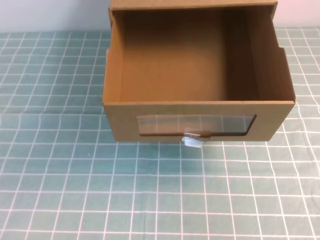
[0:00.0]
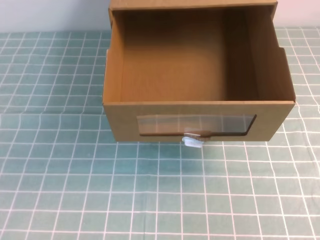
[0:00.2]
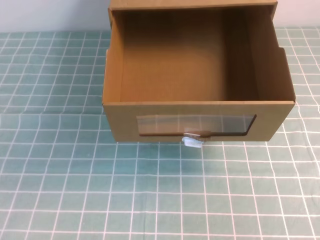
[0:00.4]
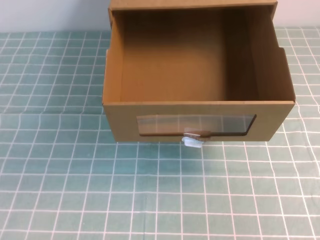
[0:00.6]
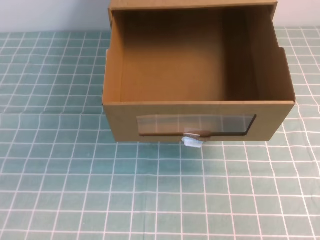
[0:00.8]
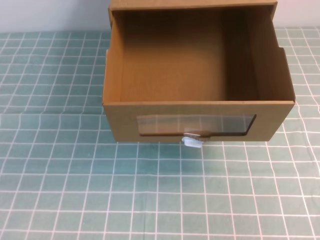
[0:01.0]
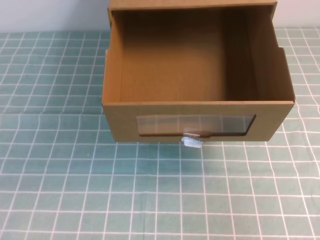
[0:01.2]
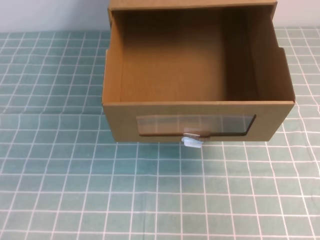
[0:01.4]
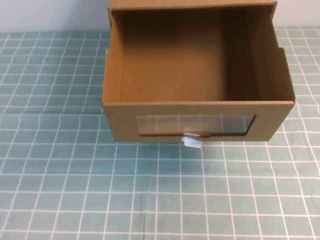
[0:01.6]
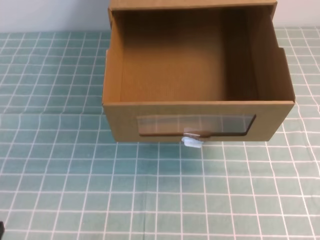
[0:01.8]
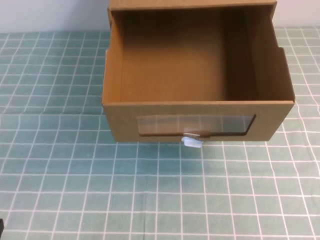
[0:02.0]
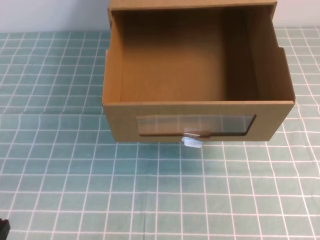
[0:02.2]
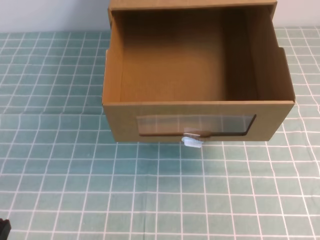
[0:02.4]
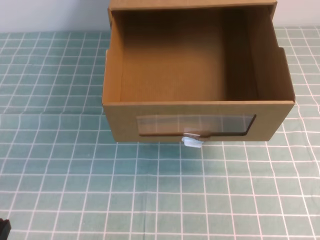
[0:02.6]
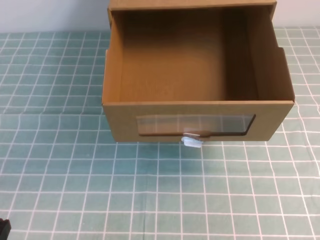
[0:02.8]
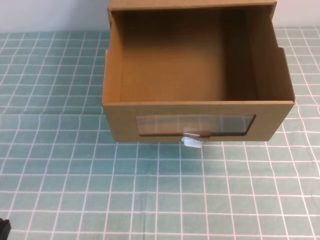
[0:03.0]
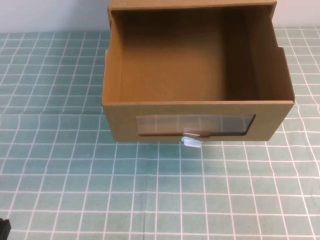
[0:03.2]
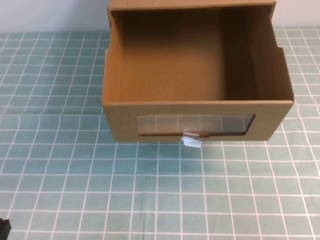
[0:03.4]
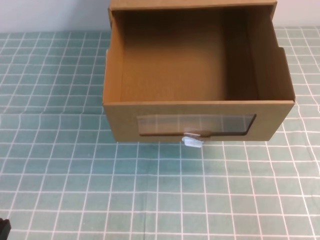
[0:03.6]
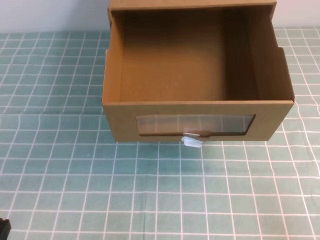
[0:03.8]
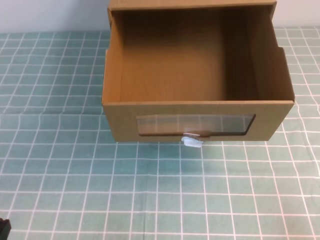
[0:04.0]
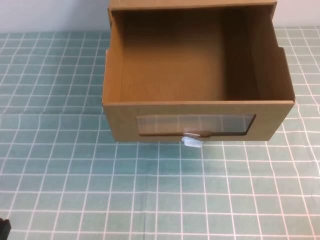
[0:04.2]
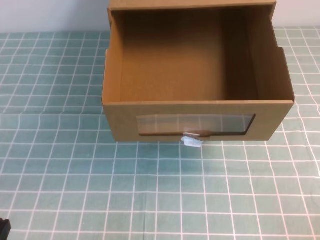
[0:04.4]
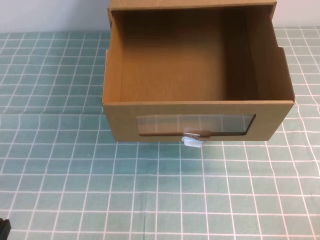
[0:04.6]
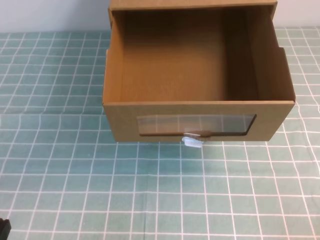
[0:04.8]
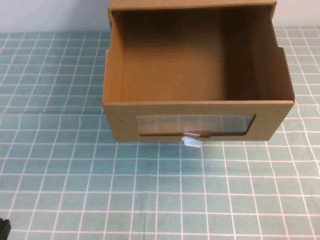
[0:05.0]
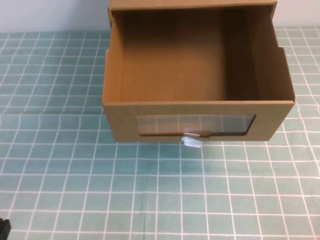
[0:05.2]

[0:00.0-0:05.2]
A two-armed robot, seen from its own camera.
Task of the whole recording: open the shoebox on the cyan tablecloth.
0:00.0 to 0:01.8: The left gripper moves downward, approximately 20 cm.

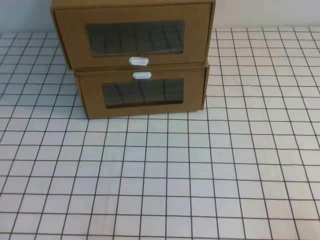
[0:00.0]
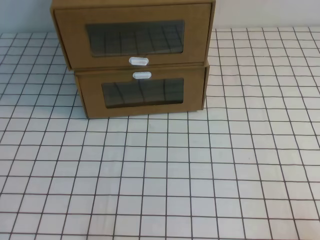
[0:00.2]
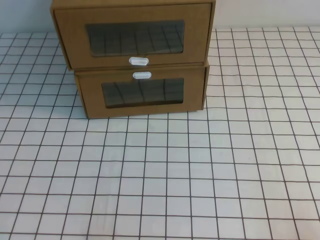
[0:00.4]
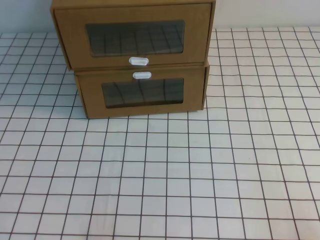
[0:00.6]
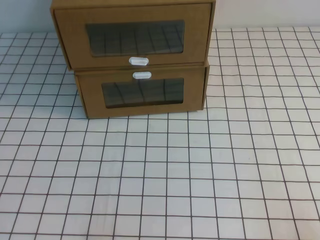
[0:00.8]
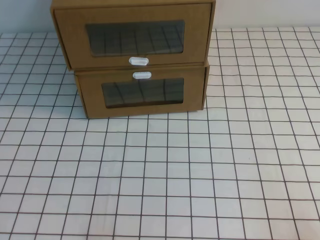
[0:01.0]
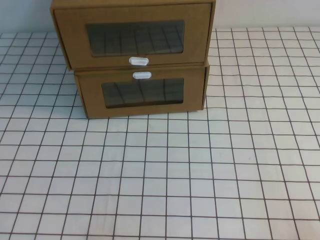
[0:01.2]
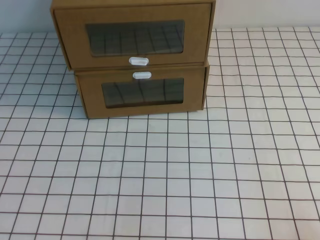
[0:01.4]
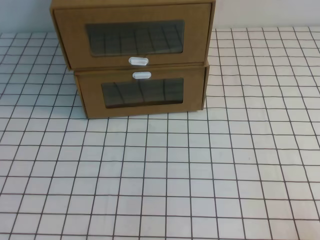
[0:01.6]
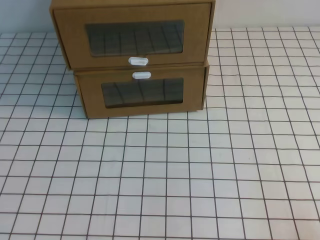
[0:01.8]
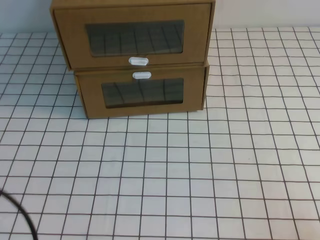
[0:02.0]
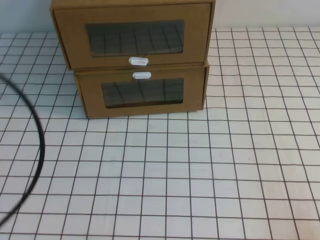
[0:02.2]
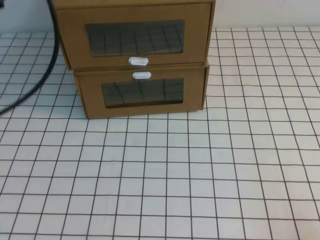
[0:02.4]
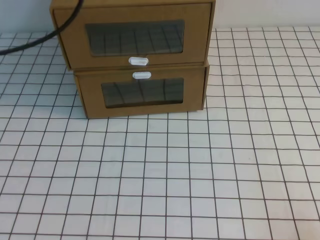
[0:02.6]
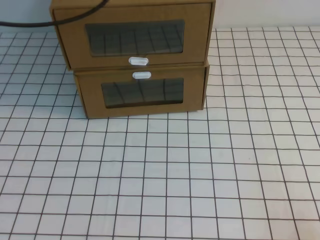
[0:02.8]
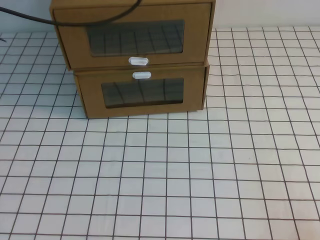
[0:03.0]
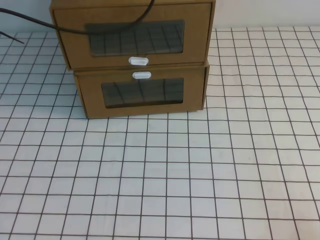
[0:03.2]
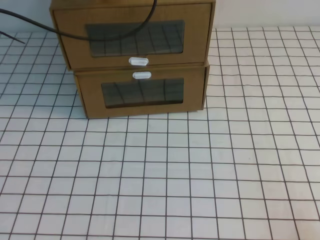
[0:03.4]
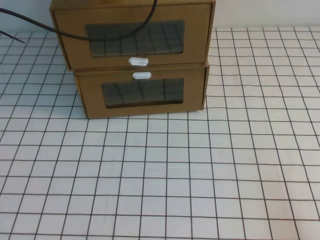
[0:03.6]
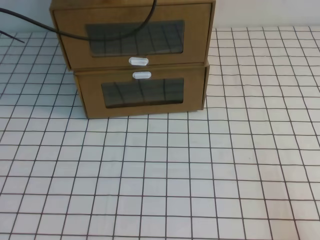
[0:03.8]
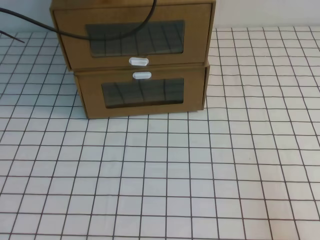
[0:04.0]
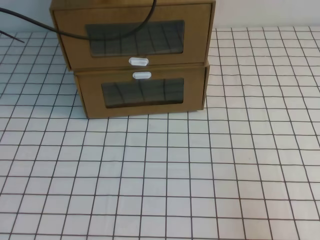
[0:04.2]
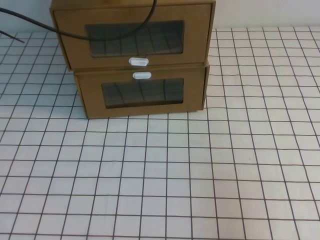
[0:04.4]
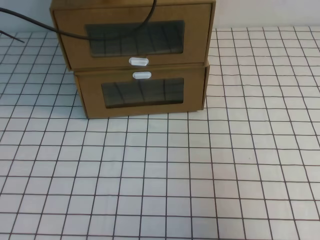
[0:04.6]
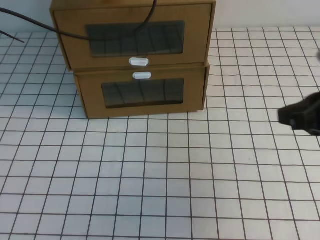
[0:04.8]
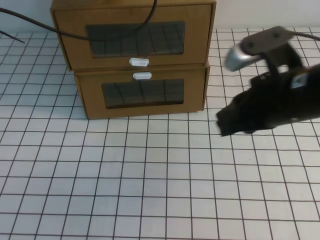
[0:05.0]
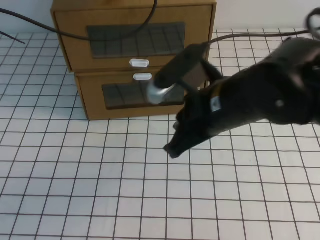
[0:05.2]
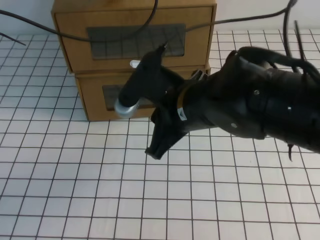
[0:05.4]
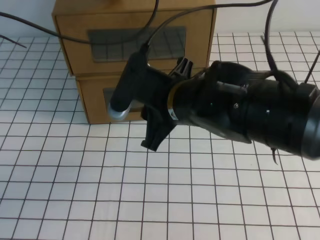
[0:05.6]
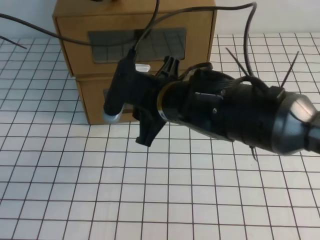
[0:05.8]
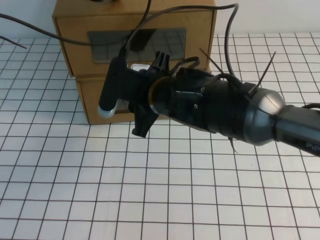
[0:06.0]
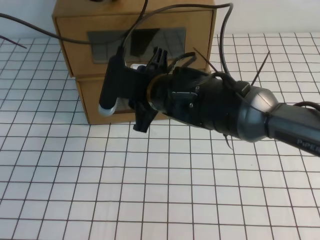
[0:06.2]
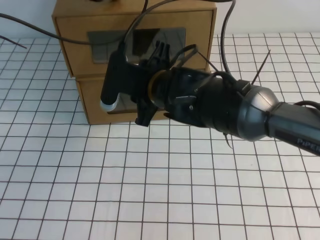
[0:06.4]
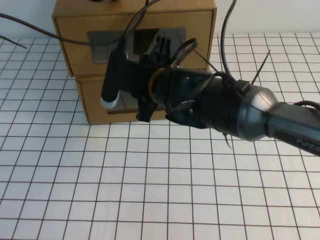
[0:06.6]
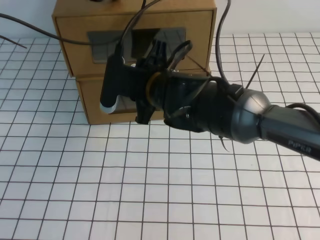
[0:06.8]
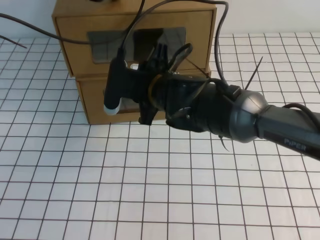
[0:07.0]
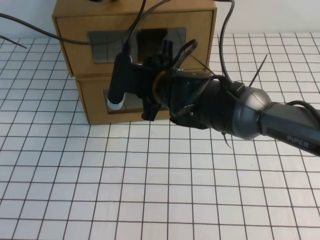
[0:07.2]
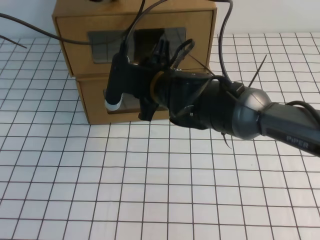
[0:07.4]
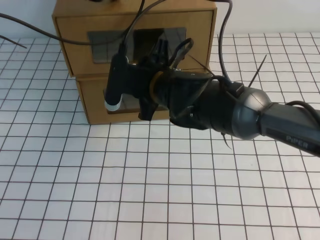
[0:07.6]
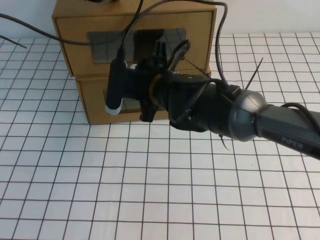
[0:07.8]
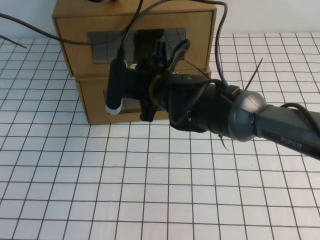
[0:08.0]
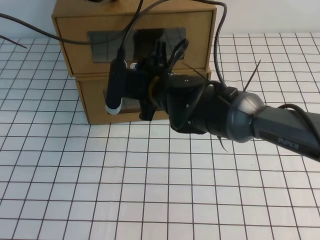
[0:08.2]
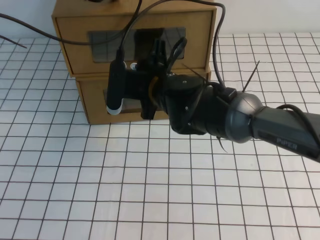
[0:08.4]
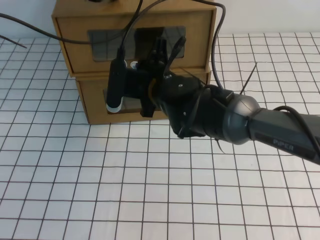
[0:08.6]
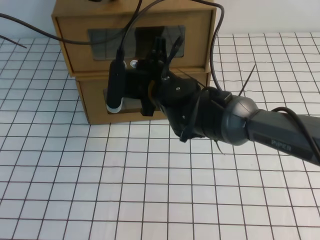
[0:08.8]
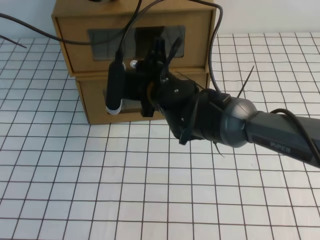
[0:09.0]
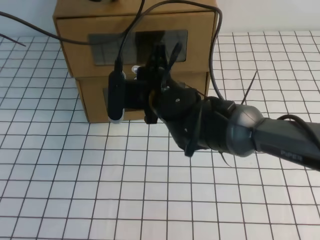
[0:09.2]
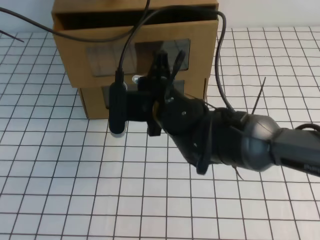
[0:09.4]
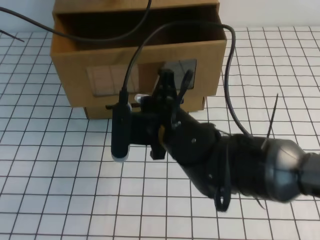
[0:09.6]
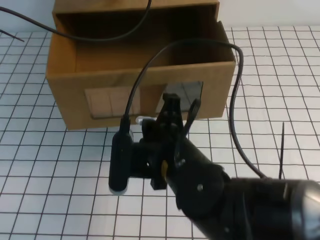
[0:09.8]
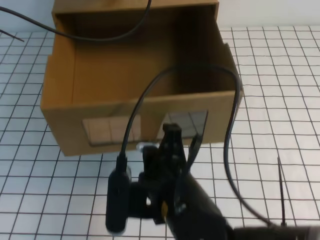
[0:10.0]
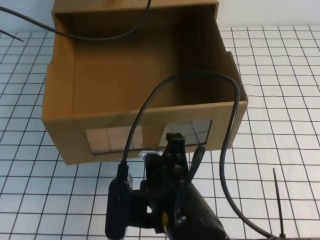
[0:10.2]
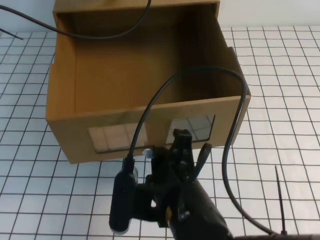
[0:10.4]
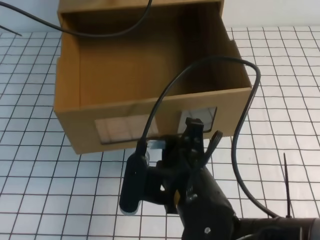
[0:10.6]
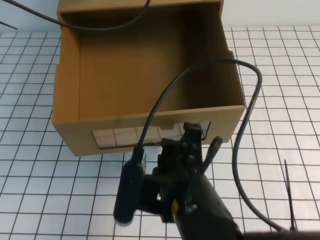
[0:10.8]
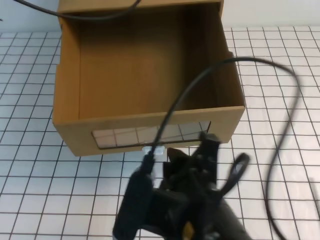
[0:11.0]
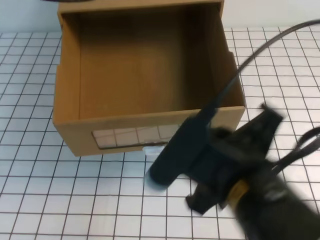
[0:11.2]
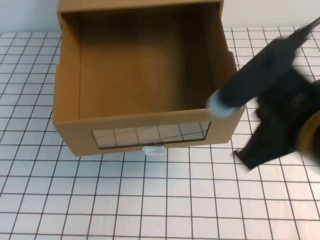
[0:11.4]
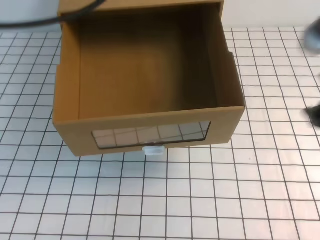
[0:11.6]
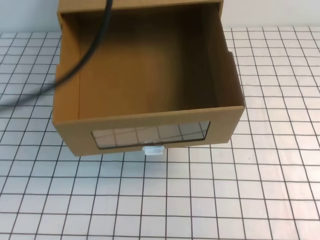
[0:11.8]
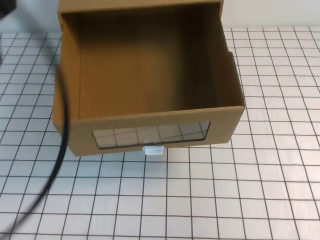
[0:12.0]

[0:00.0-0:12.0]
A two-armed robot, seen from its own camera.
Task of the whole recording: open the shoebox on the white tablecloth.
0:01.6 to 0:03.0: The left gripper is displaced forward and upward by approximately 40 cm.
0:03.0 to 0:04.4: The right gripper moves upward, some 10 cm, while the left gripper moves approximately 5 cm.
0:04.4 to 0:06.0: The right gripper travels to the left and forward by about 35 cm, and opens.
0:06.0 to 0:07.6: The grippers move only a little.
0:07.6 to 0:09.0: The right gripper closes up.
0:09.0 to 0:10.4: The right gripper heads backward, covering approximately 20 cm, and opens up.
0:10.4 to 0:12.0: The right gripper goes some 30 cm to the right and upward, and closes its fingers. The left gripper goes roughly 30 cm backward.

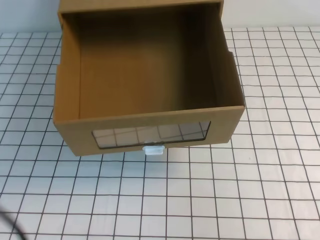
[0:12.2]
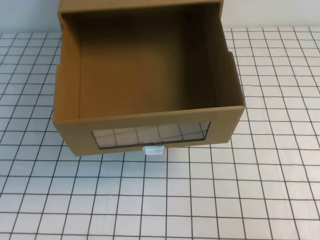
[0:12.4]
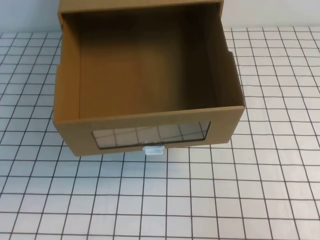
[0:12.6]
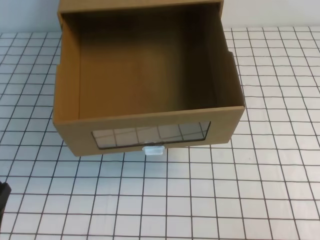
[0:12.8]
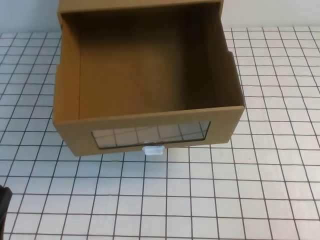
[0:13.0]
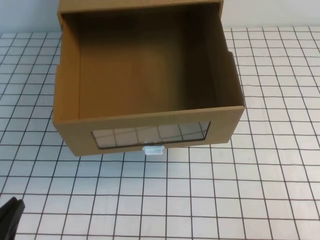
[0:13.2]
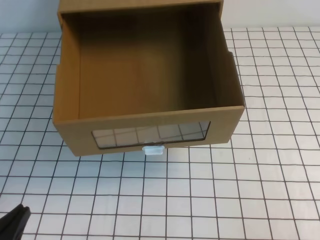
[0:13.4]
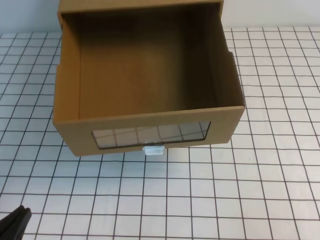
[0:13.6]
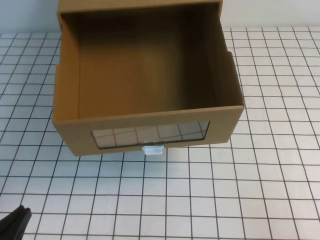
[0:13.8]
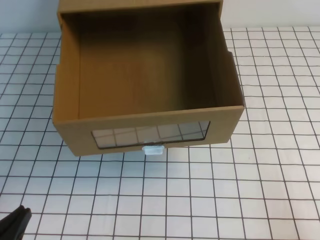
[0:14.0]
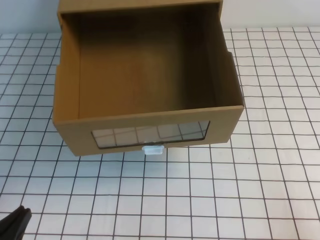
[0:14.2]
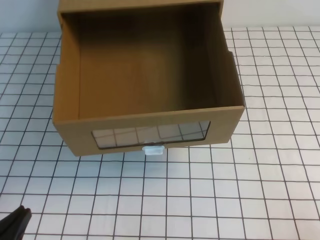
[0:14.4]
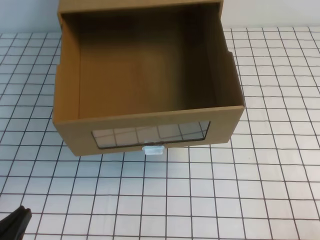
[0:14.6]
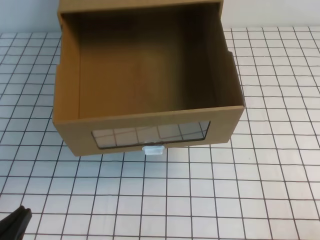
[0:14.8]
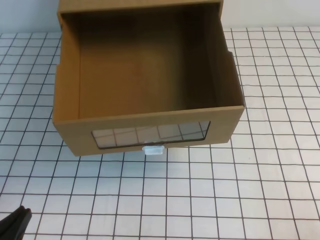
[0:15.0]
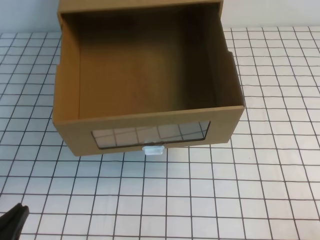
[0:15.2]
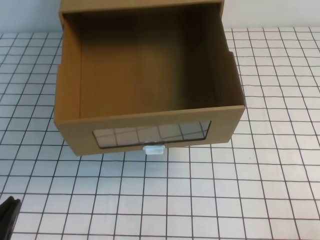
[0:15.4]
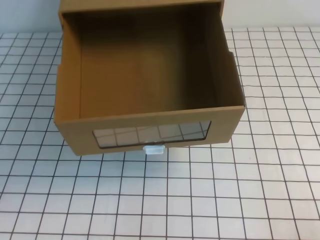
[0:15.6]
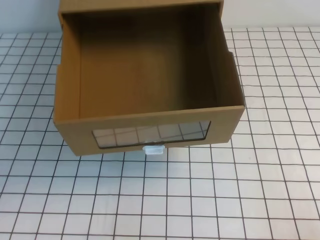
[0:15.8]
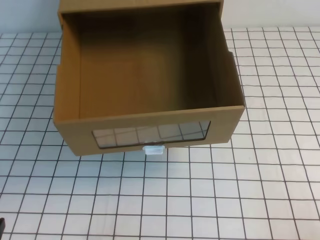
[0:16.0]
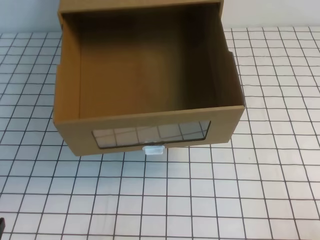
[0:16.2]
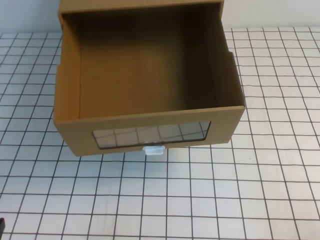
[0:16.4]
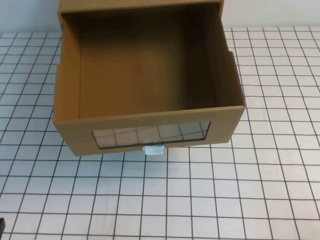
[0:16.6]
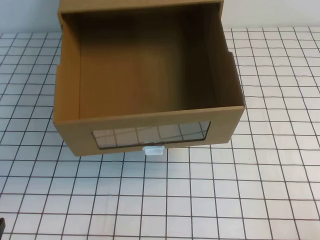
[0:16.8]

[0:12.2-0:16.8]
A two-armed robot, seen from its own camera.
Task of the whole recording: open the shoebox on the white tablecloth.
Step, 0:12.2 to 0:16.8: Open the shoe box.
0:12.2 to 0:13.8: The left gripper moves downward, some 25 cm, while the right gripper travels downward by some 15 cm.
0:15.2 to 0:16.8: There are only small adjustments of the grippers.
